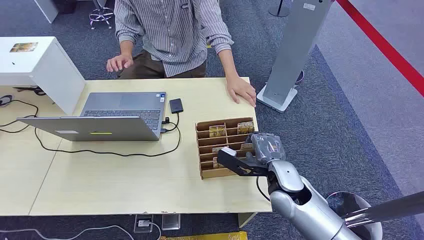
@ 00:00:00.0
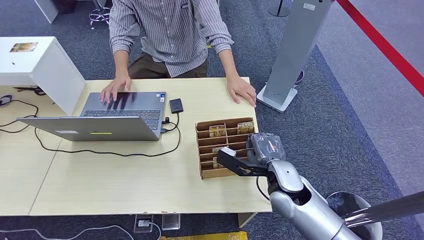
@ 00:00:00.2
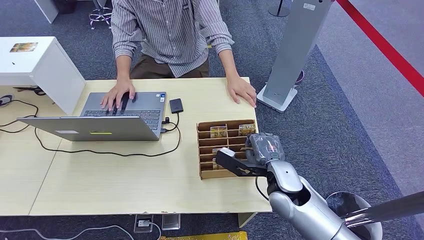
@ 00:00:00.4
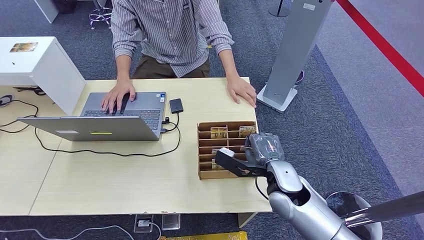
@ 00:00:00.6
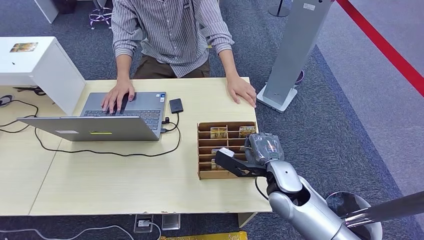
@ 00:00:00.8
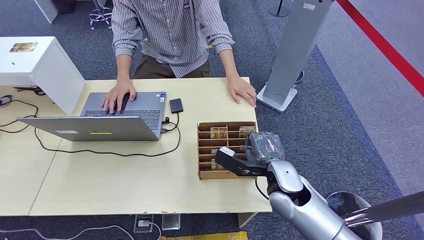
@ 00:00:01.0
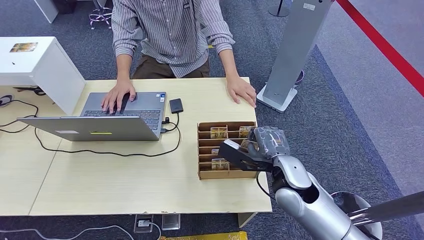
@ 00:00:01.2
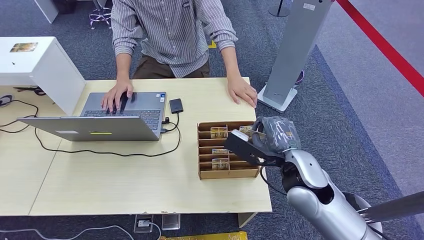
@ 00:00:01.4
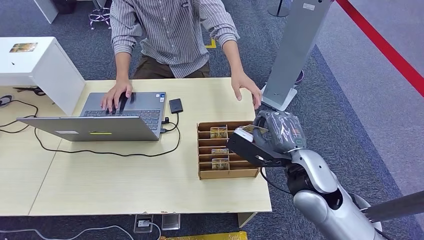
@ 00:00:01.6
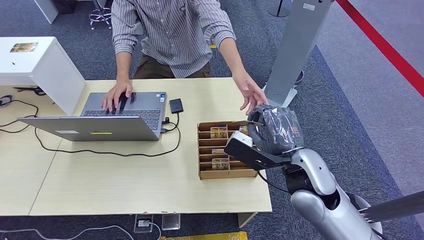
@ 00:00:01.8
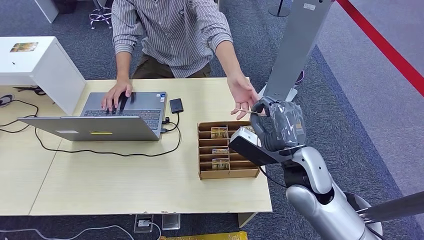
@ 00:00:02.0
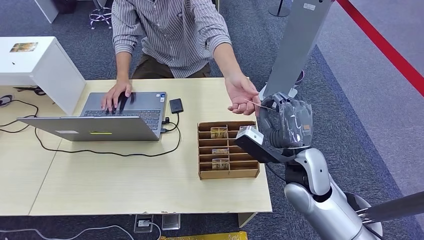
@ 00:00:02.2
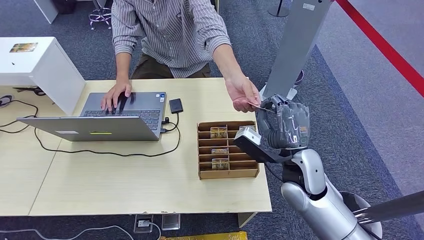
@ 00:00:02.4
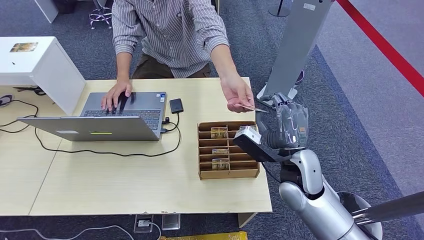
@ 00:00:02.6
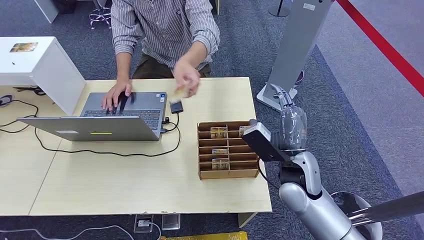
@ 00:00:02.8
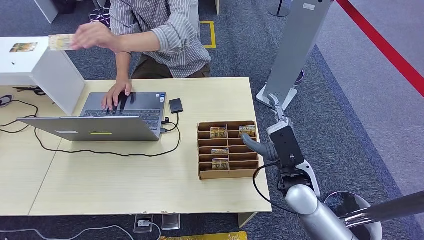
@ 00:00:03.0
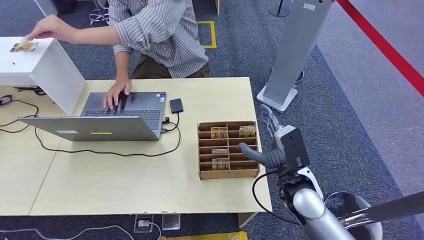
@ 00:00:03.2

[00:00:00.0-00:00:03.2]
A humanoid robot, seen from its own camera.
Step, 00:00:00.0 to 00:00:01.6: Pick up the key card from the card box.
Step, 00:00:02.2 to 00:00:03.2: Hand the key card to the target.
00:00:01.6 to 00:00:03.2: The right hand moves downward, roughly 10 cm.

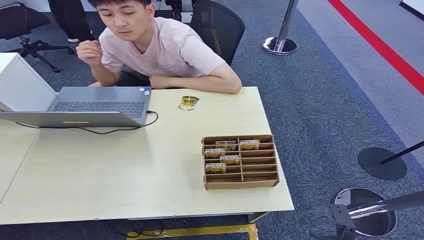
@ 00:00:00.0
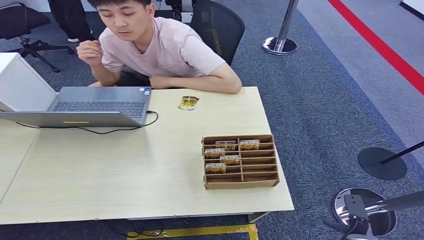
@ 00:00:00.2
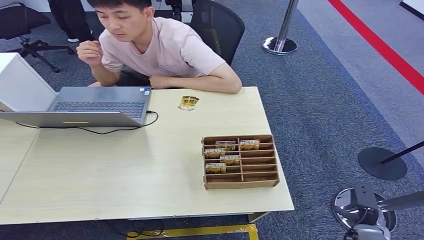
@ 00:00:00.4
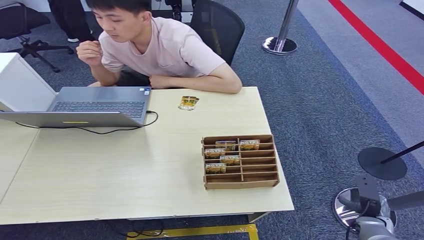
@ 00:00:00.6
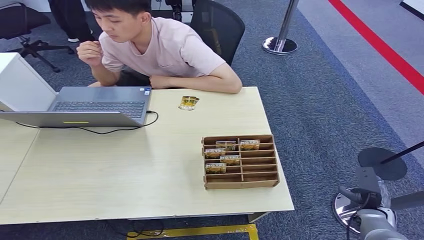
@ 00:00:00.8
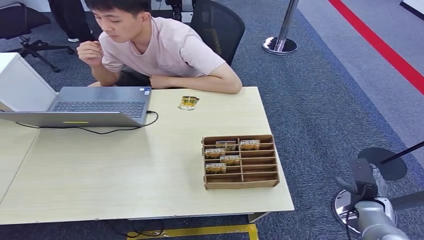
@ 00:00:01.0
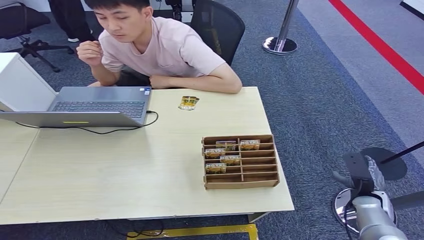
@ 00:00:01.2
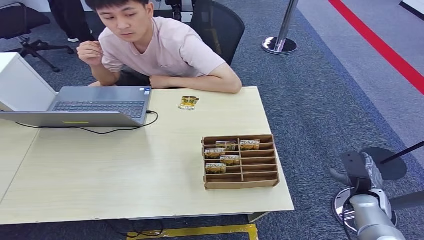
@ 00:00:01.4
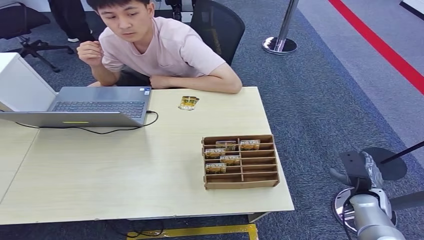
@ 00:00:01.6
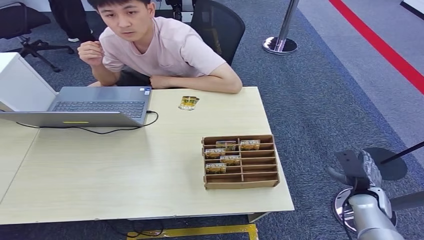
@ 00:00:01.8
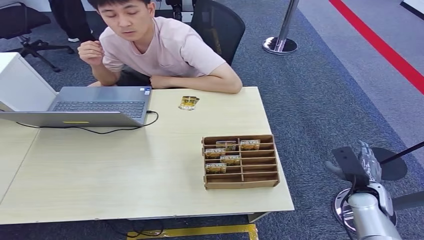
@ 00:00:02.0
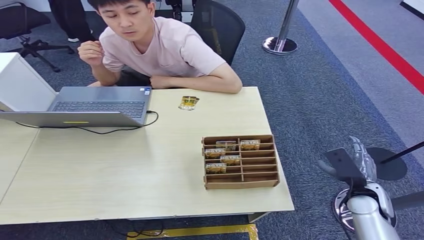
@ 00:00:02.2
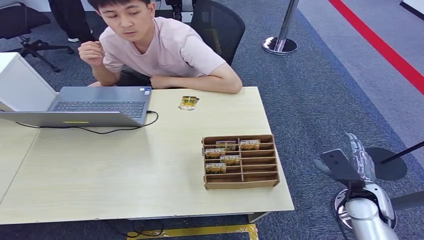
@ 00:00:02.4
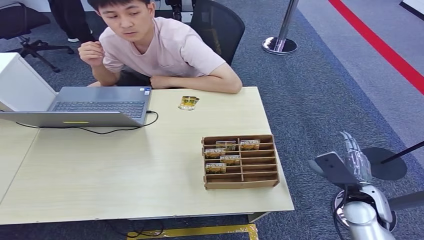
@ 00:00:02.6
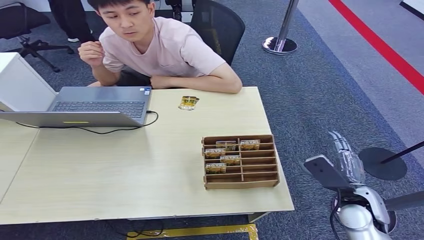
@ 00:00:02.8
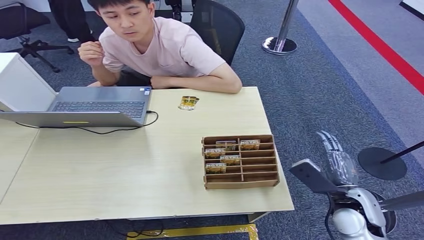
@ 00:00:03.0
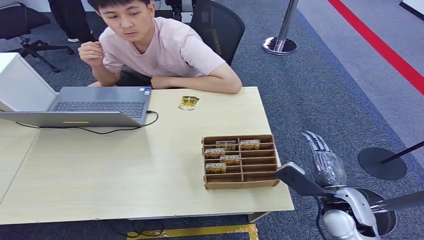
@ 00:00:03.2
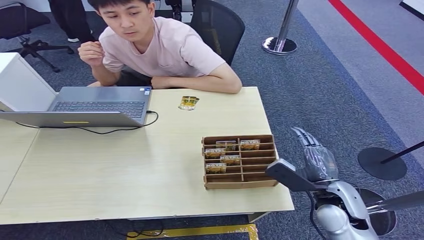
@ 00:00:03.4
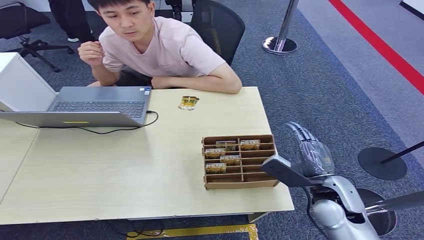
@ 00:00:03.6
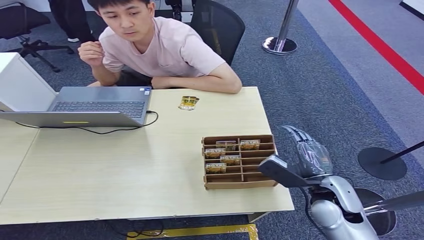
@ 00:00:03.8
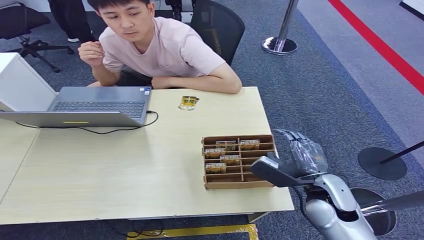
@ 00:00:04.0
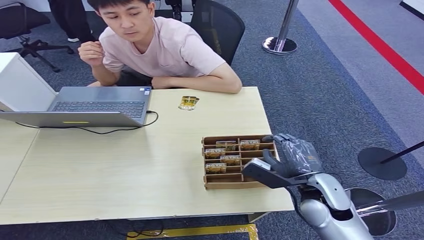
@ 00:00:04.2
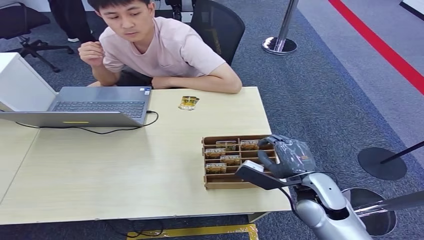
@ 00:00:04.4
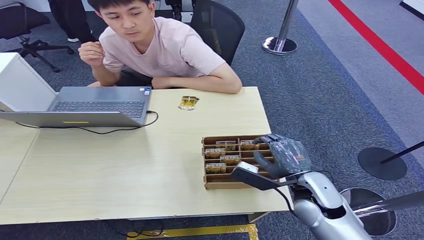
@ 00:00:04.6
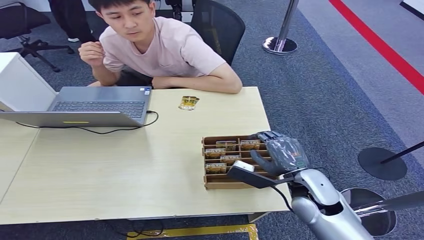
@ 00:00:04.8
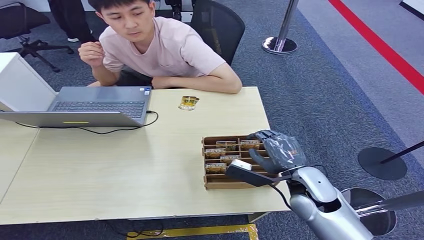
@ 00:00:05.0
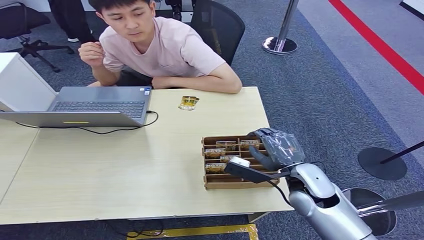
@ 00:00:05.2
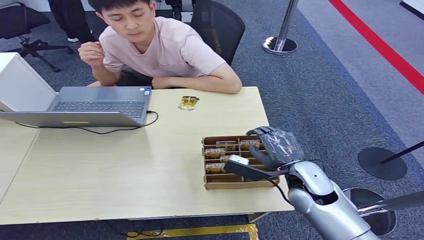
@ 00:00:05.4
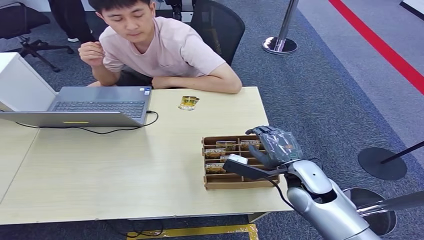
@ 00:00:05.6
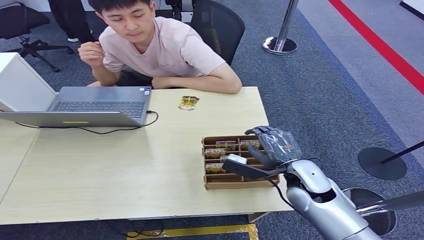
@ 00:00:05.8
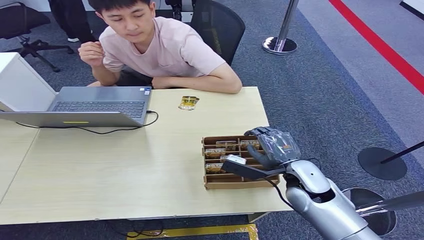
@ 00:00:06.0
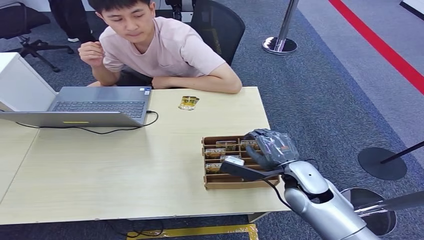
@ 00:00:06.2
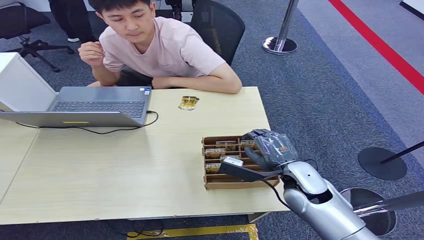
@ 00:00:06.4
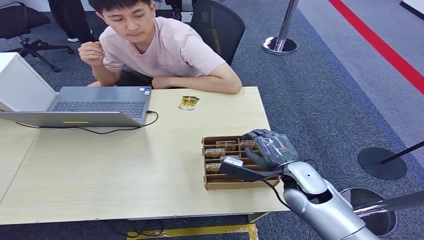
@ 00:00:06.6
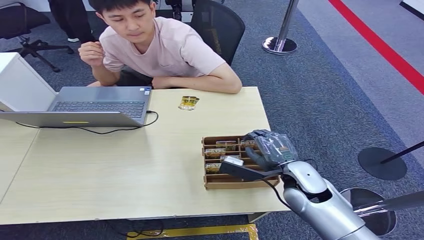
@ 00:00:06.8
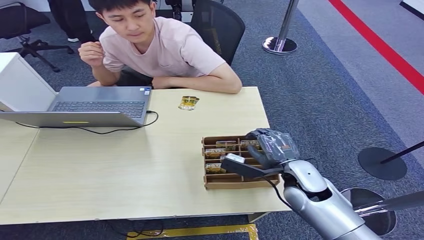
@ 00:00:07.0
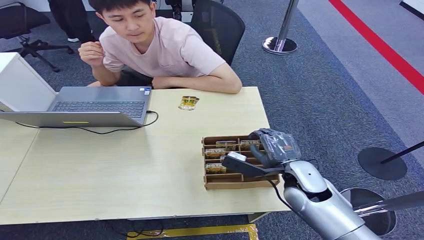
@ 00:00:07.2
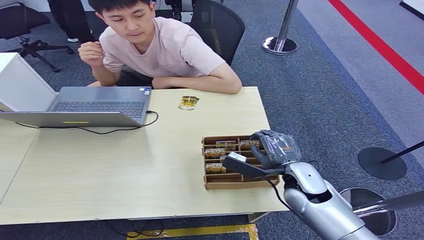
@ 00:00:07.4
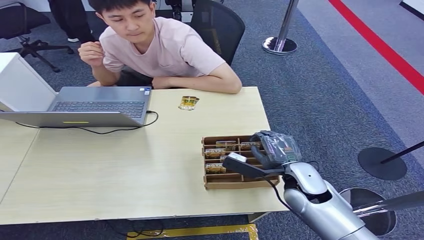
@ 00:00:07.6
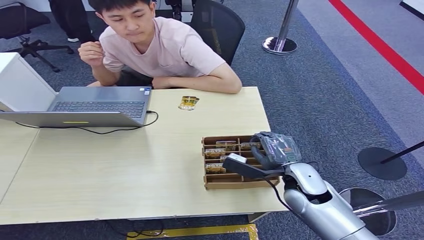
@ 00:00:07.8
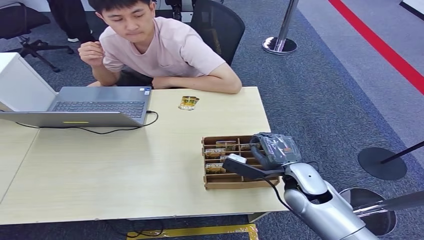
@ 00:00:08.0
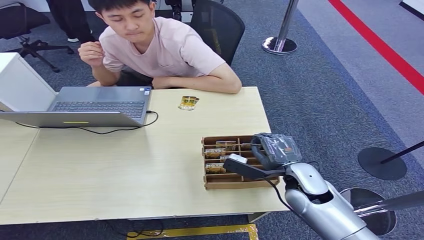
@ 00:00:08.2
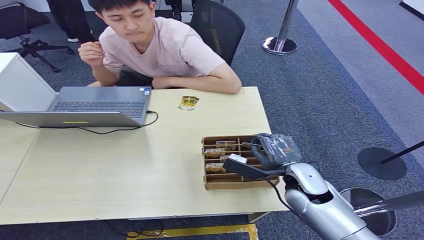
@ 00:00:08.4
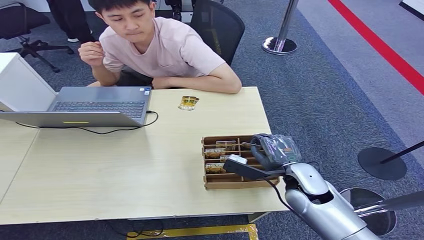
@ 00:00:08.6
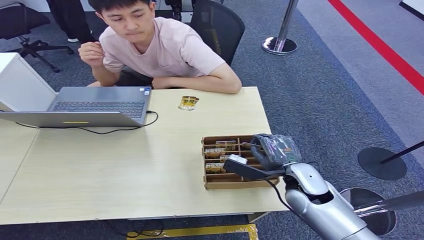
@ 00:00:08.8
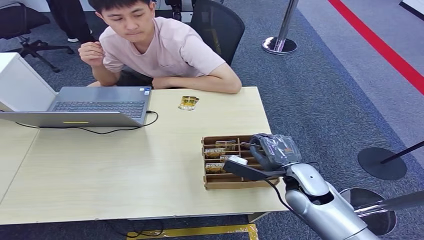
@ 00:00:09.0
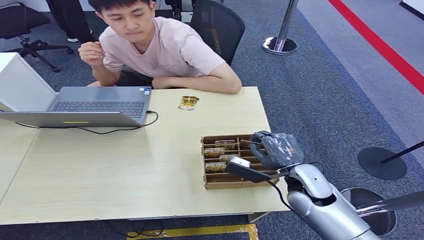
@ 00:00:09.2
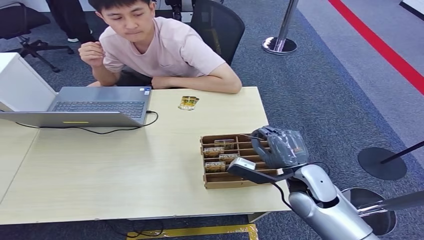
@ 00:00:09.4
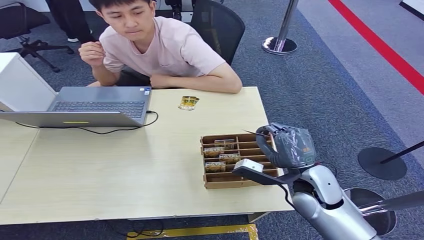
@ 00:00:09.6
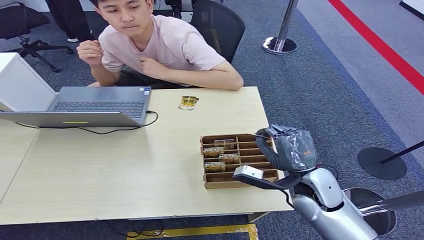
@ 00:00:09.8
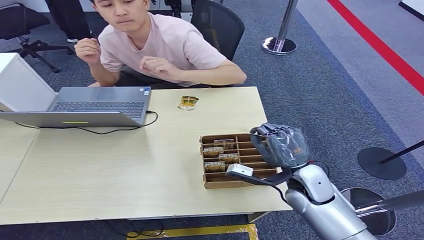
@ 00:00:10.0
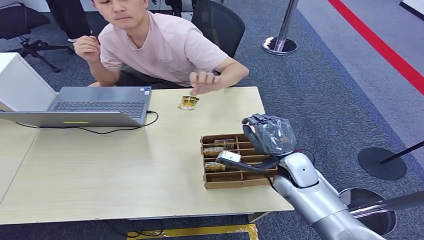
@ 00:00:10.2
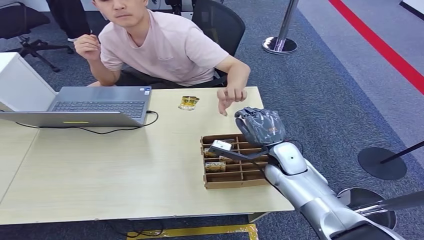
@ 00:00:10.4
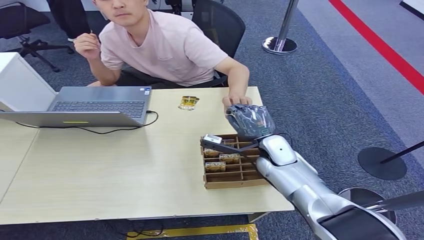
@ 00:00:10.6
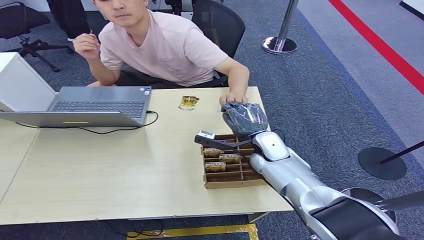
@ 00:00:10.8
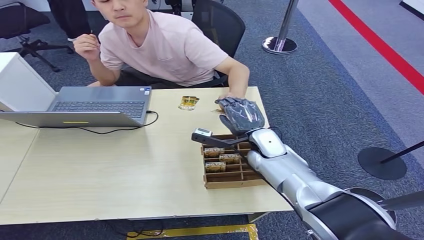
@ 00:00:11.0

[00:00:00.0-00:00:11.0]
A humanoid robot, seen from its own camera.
Step, 00:00:00.0 to 00:00:09.6: Pick up the key card from the card box.
Step, 00:00:10.0 to 00:00:11.0: Hand the key card to the target.
00:00:01.6 to 00:00:03.2: The right hand shifts roughly 20 cm to the left and upward.
00:00:03.2 to 00:00:04.8: The right hand is displaced to the left by approximately 5 cm.
00:00:04.8 to 00:00:09.4: The hands move only a little.
00:00:09.4 to 00:00:11.0: The right hand is displaced forward and to the left by roughly 15 cm.
